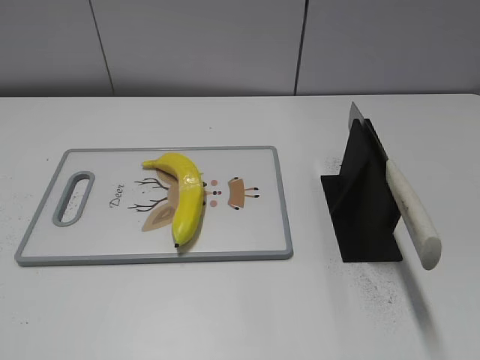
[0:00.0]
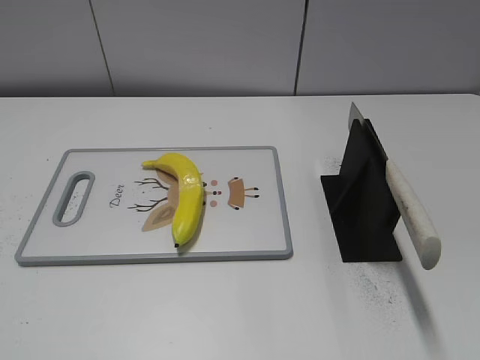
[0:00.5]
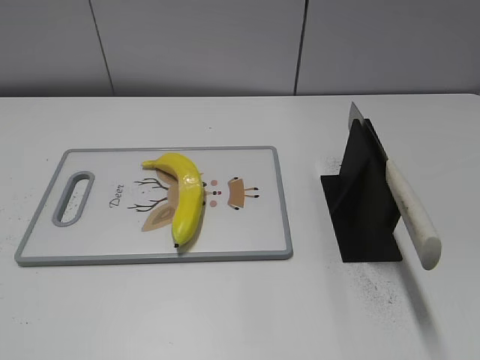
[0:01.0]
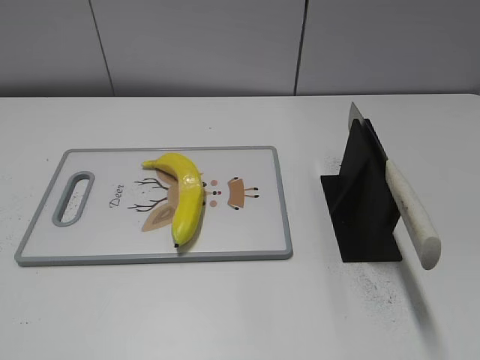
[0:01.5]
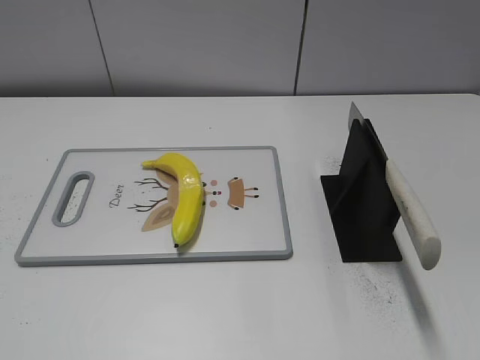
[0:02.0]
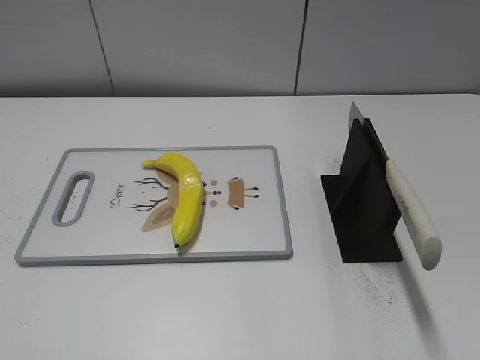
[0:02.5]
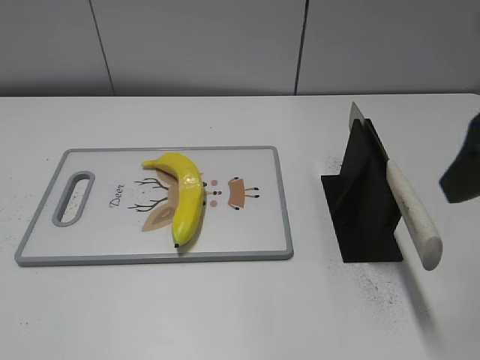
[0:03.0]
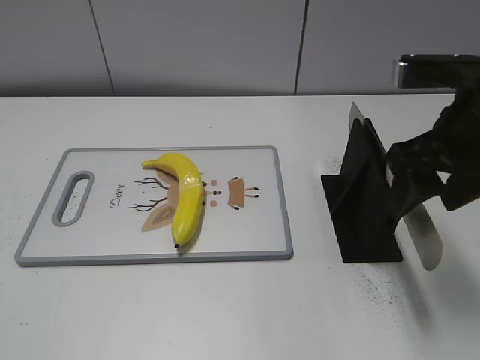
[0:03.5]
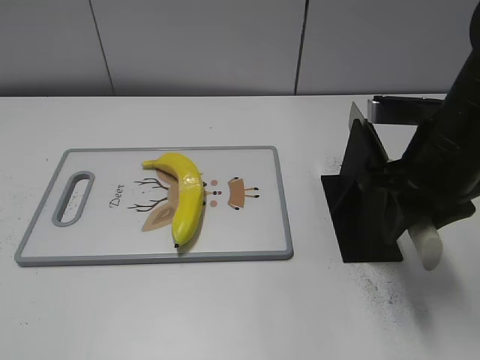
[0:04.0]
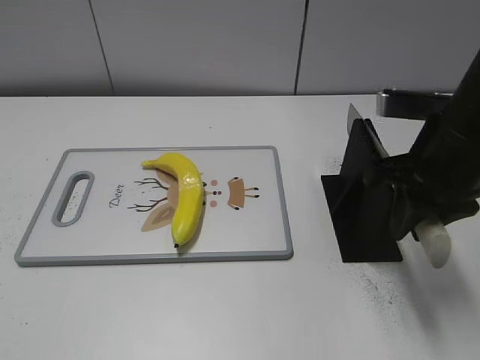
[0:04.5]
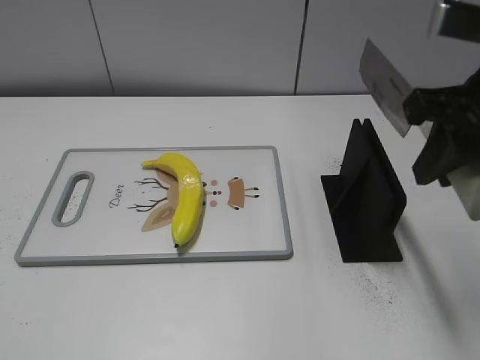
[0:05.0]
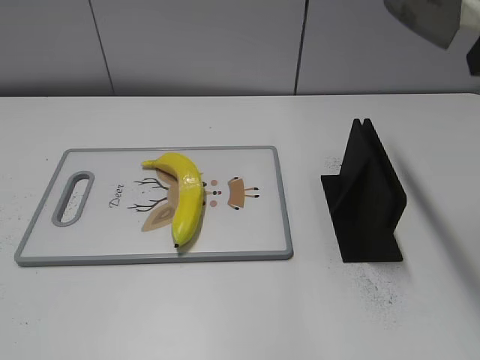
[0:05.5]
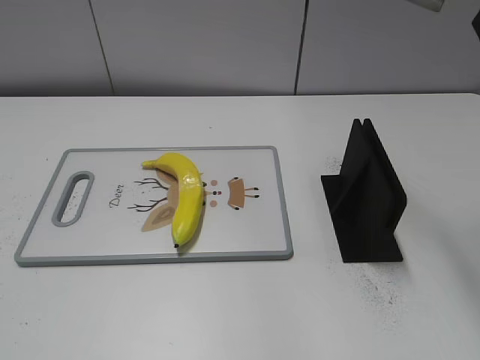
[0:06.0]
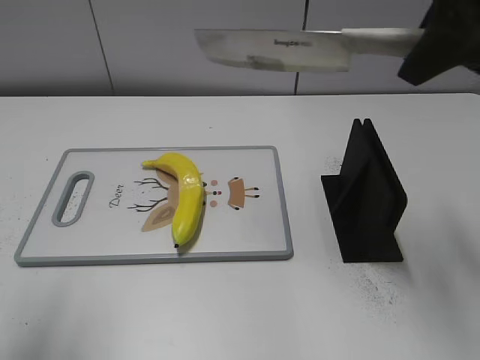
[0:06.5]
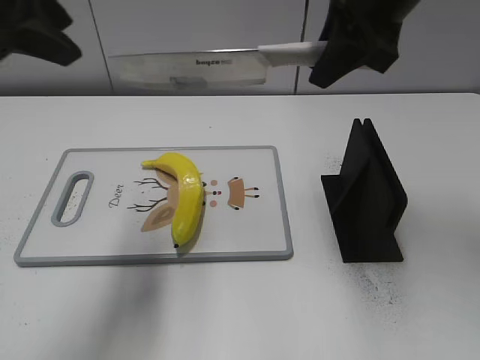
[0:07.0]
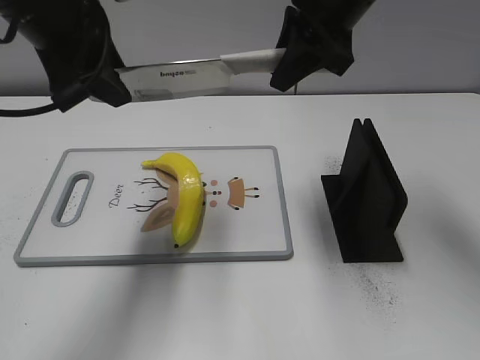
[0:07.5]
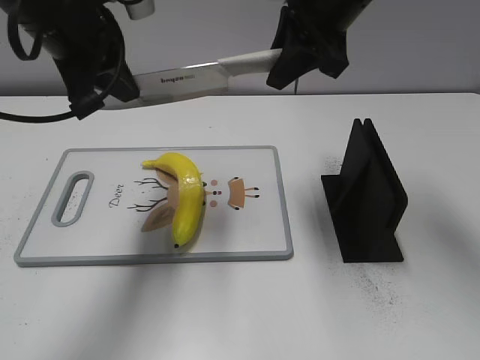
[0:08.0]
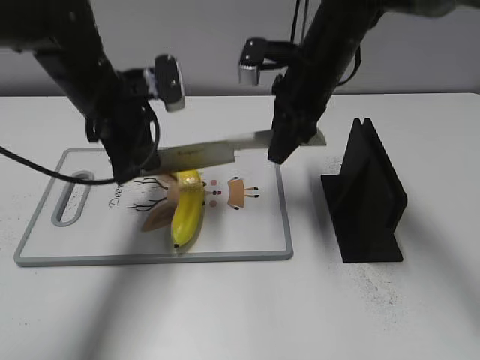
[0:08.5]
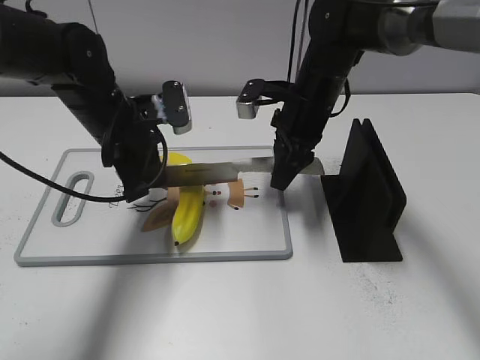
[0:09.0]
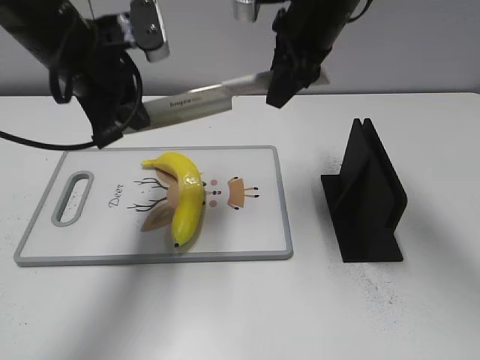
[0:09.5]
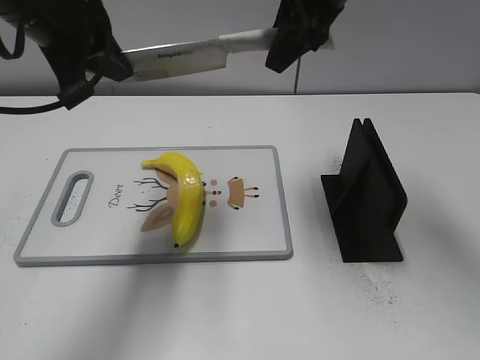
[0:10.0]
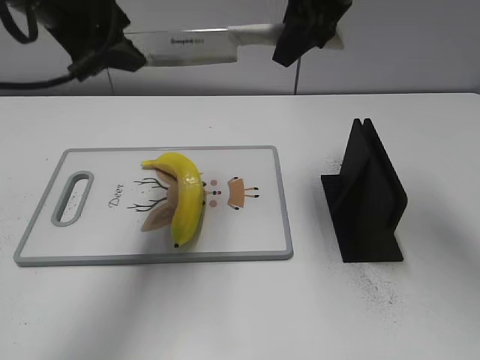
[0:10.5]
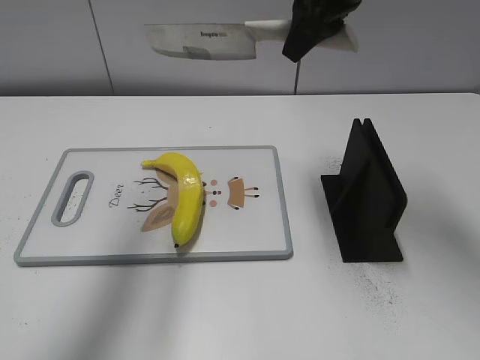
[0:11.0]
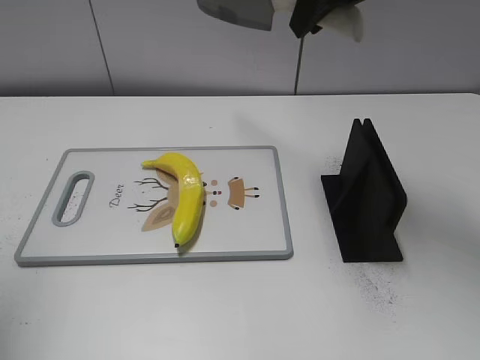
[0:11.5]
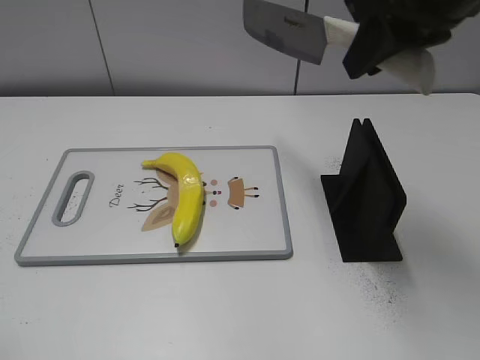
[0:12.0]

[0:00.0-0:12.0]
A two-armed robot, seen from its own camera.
Task of the whole recording: cut plastic banana.
Step, 0:00.0 to 0:05.0: Grab the knife handle with your right hand.
Step, 0:05.5 to 0:09.5: Lift the knife with your right hand.
0:02.0 to 0:04.0: The right gripper heads forward, covering some 25 cm, and closes its fingers.
0:04.0 to 0:06.0: The right gripper travels upward by approximately 20 cm.
0:06.0 to 0:08.0: The left gripper travels forward and to the right by roughly 35 cm, and closes; the right gripper shifts some 20 cm forward, to the left and downward.
0:08.0 to 0:10.0: The right gripper moves approximately 15 cm downward and comes back, while the left gripper reaches about 15 cm downward, then returns.
0:10.0 to 0:12.0: The right gripper heads backward and to the right, covering approximately 10 cm; the left gripper travels backward and to the left by some 30 cm, and opens.

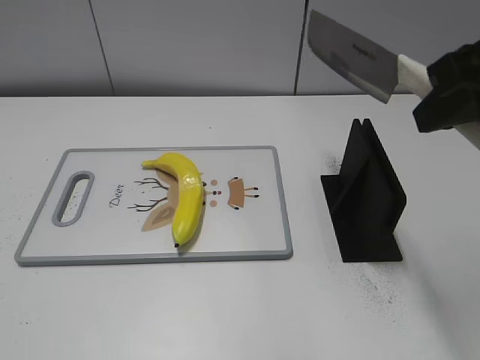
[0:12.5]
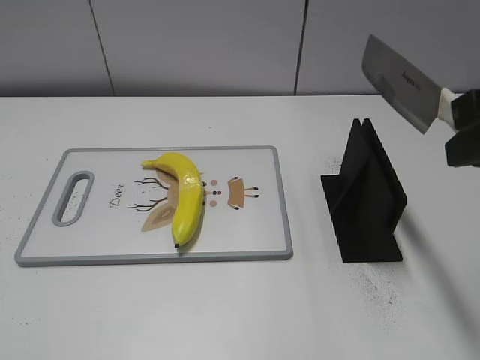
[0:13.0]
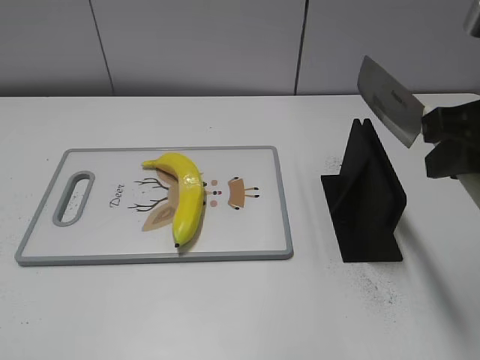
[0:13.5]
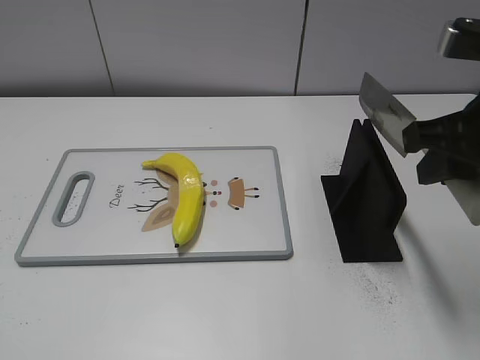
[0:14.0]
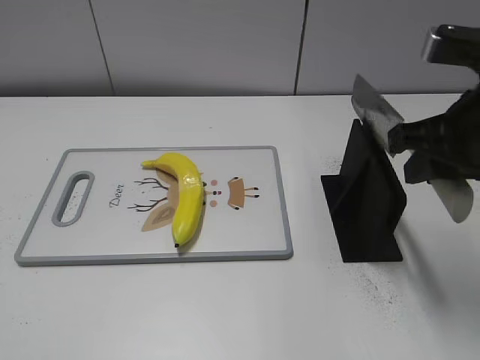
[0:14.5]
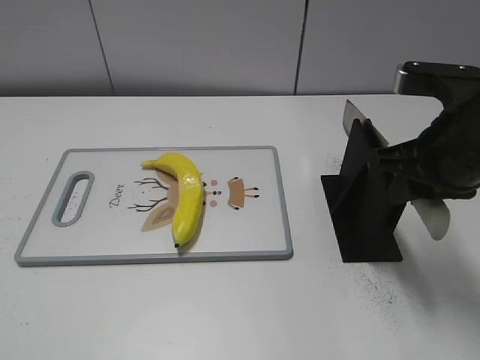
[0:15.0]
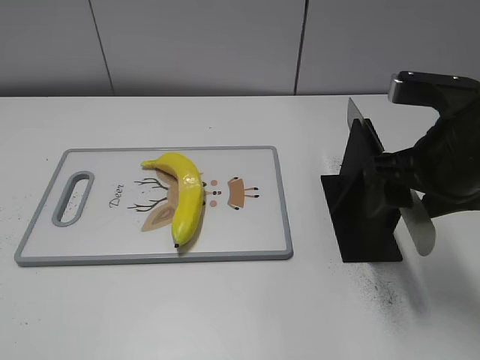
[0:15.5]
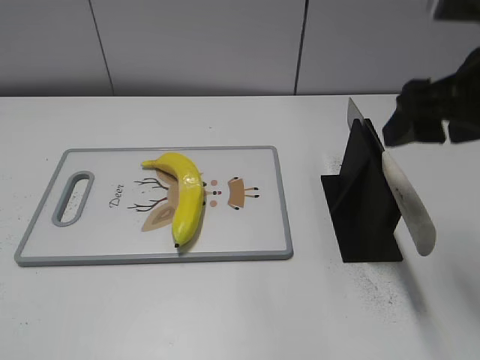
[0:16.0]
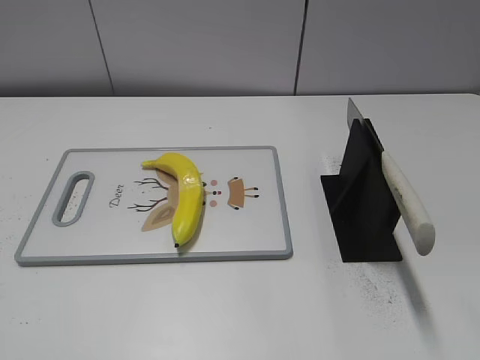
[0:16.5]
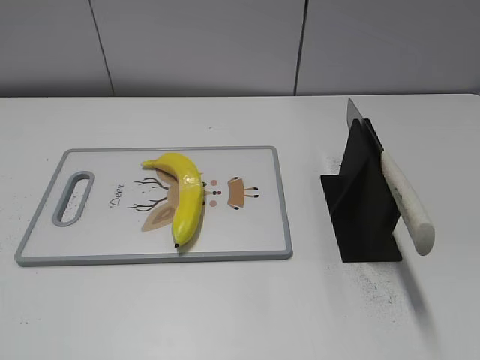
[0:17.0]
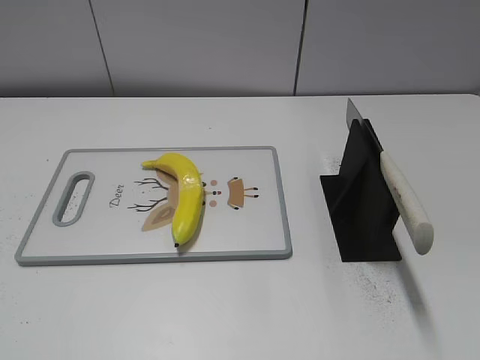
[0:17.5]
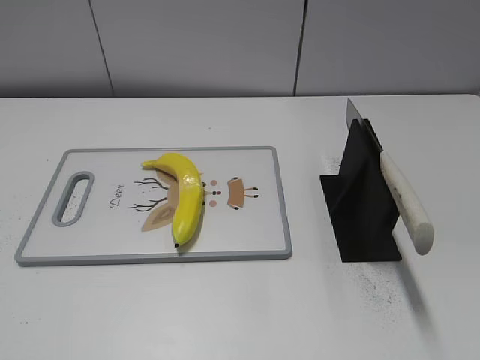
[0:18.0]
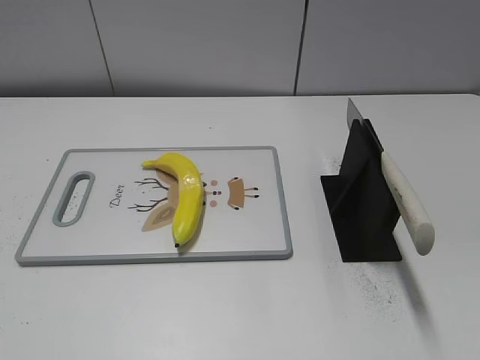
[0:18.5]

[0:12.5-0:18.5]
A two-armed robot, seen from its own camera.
Task of the whole recording: cut plastic banana.
Step, 0:12.5 to 0:18.5: Place the knife on the storage rack with your right hand.
0:12.5 to 0:14.5: The right gripper moves downward, approximately 10 cm.
0:14.5 to 0:16.5: The right gripper is displaced upward and backward by roughly 15 cm, and opens up.

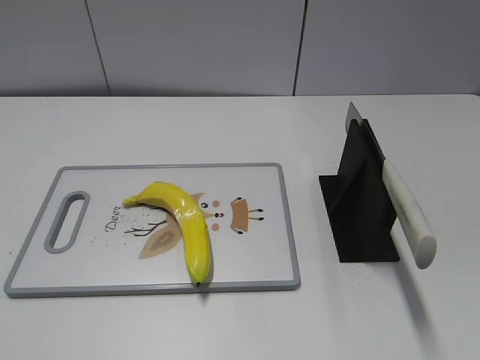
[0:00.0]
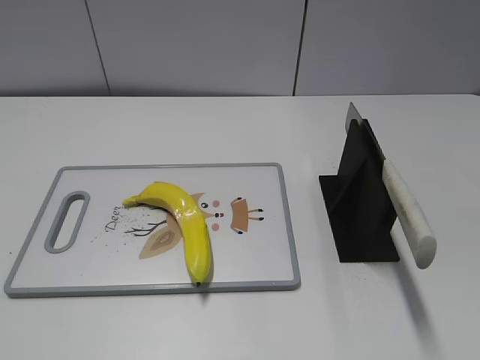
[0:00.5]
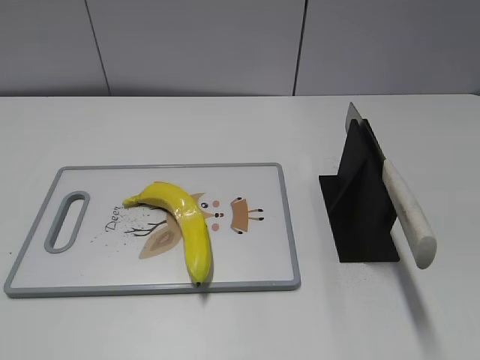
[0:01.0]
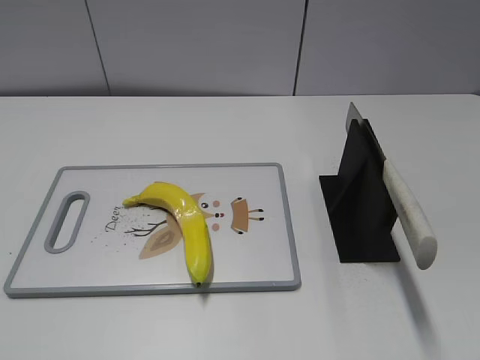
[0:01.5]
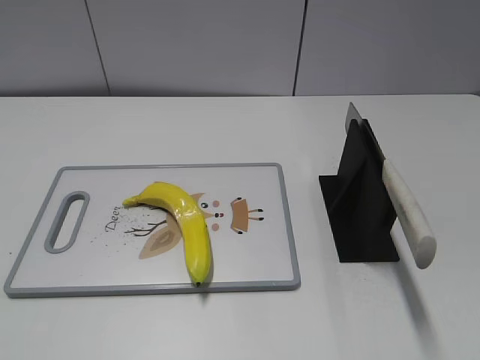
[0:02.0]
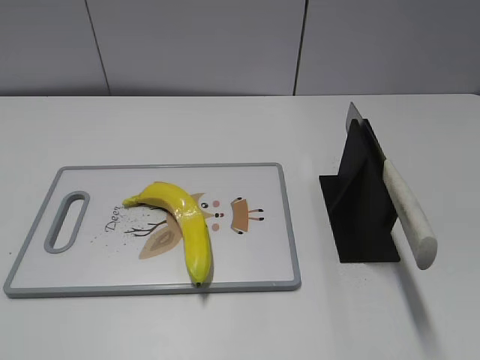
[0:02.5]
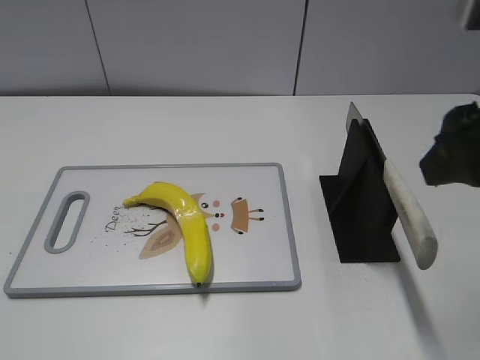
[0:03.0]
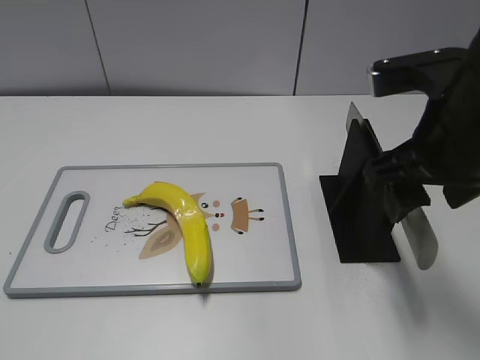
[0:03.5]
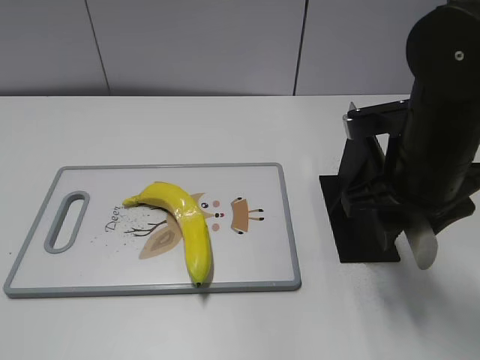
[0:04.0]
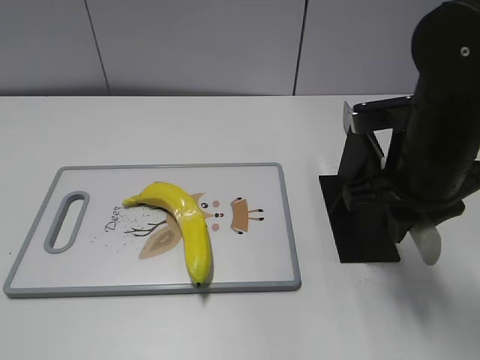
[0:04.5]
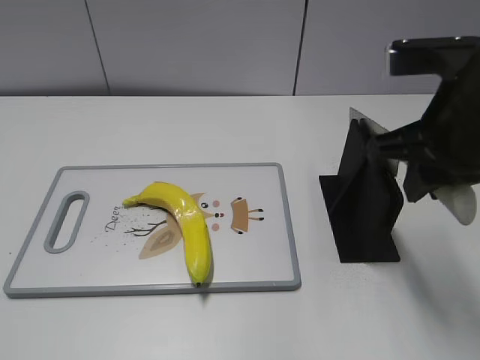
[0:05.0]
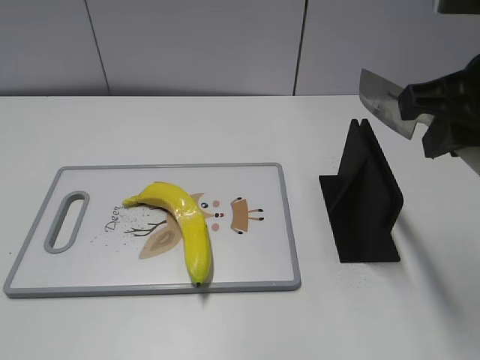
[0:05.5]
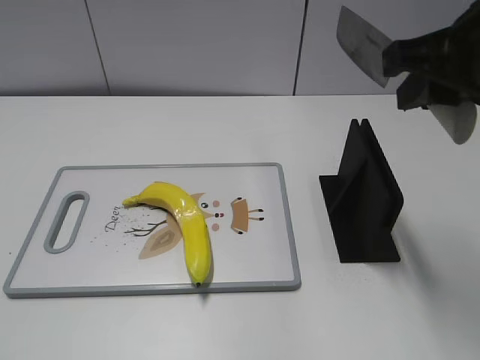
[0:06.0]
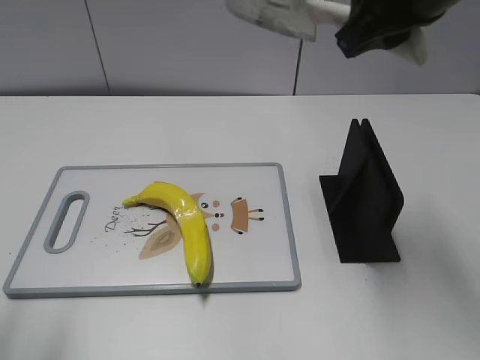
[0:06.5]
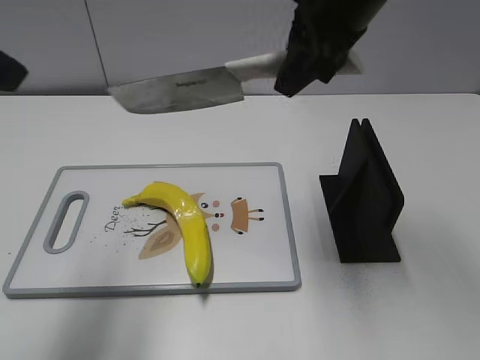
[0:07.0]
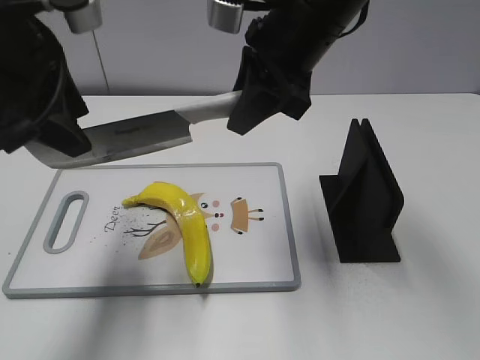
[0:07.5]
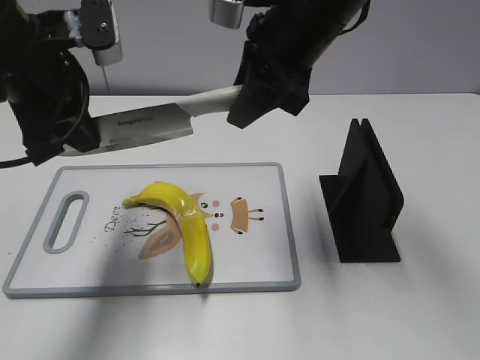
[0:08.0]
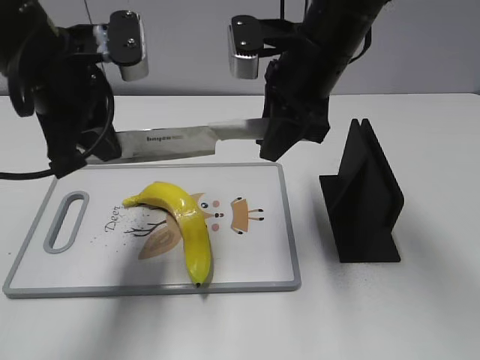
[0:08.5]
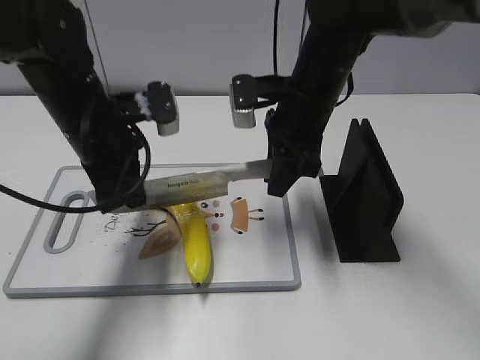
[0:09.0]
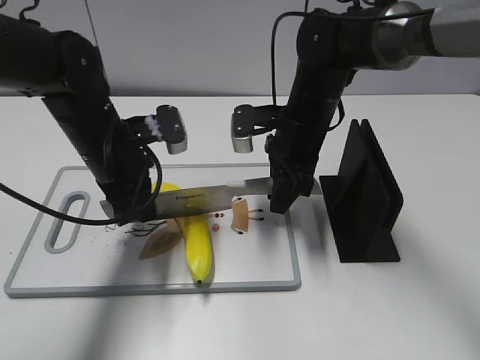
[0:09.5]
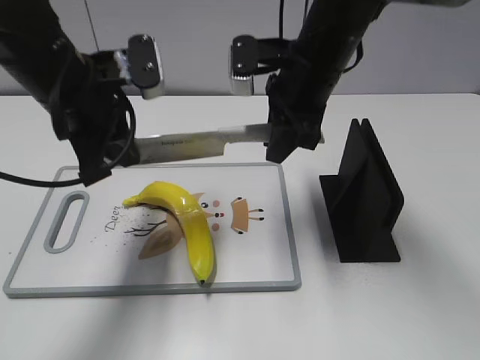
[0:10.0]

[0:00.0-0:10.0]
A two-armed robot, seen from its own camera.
Task of the whole recording: cut plastic banana.
Step, 0:00.0 to 0:05.0: Grab the knife handle with your right hand.
0:02.0 to 0:04.0: The right gripper goes roughly 30 cm forward, to the left and downward.
0:04.0 to 0:06.0: The right gripper goes some 10 cm upward, and closes.
0:06.0 to 0:08.0: The left gripper shifts roughly 30 cm forward and to the right, and closes, while the right gripper is displaced to the left and forward by about 15 cm.
0:08.0 to 0:10.0: The right gripper heads downward, covering about 5 cm.
